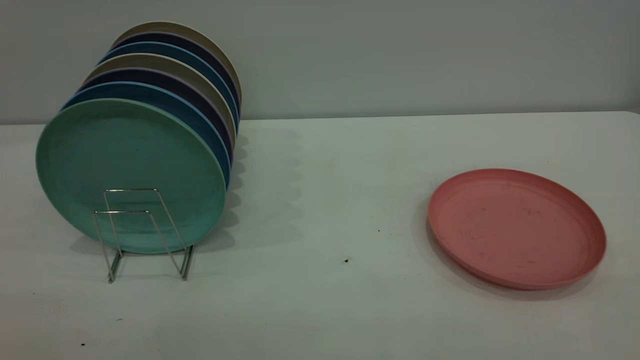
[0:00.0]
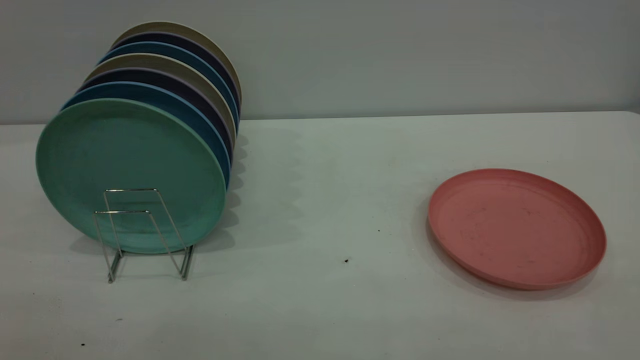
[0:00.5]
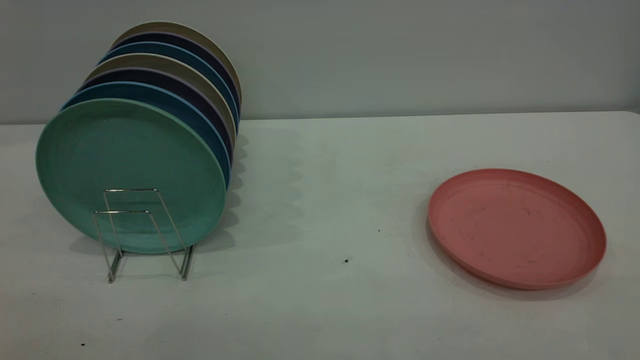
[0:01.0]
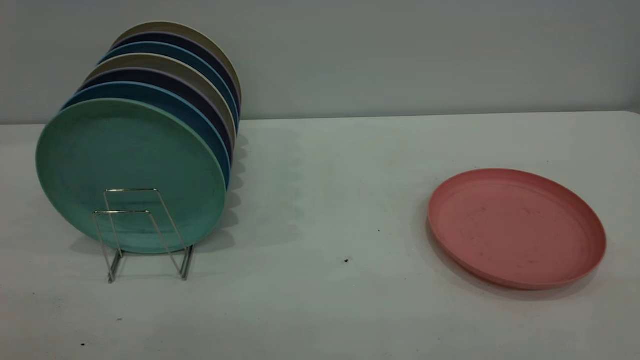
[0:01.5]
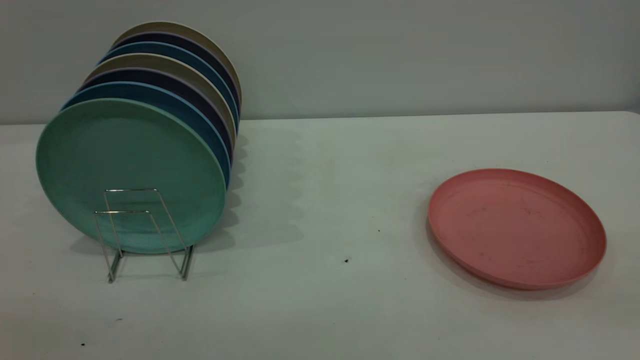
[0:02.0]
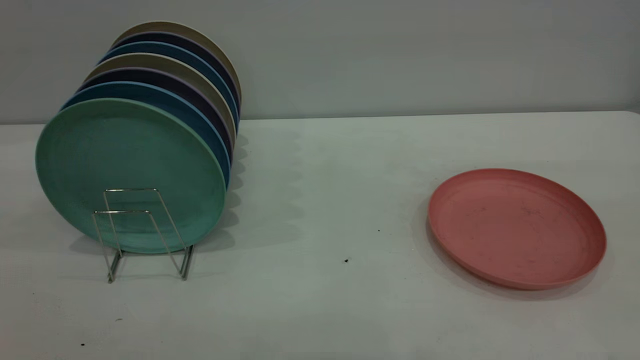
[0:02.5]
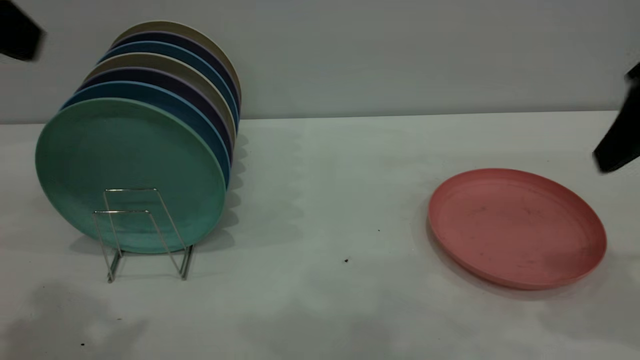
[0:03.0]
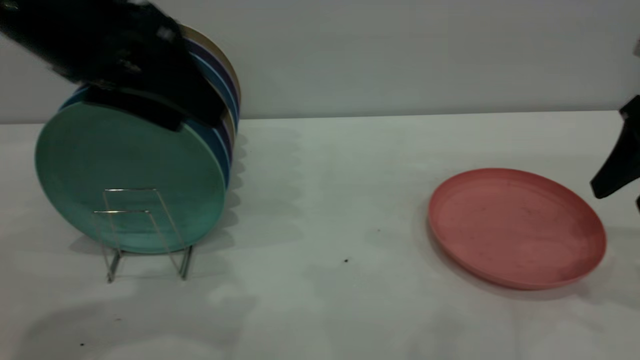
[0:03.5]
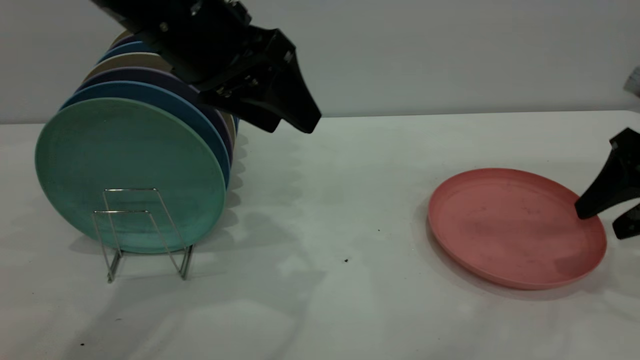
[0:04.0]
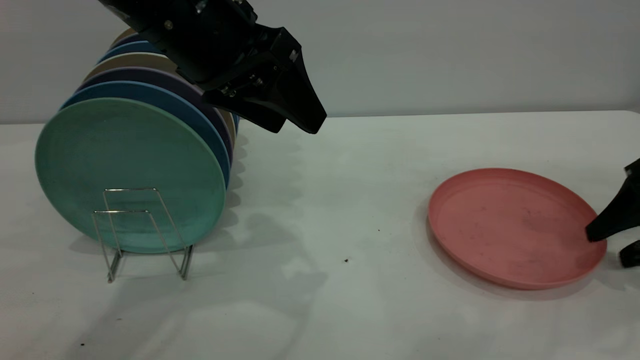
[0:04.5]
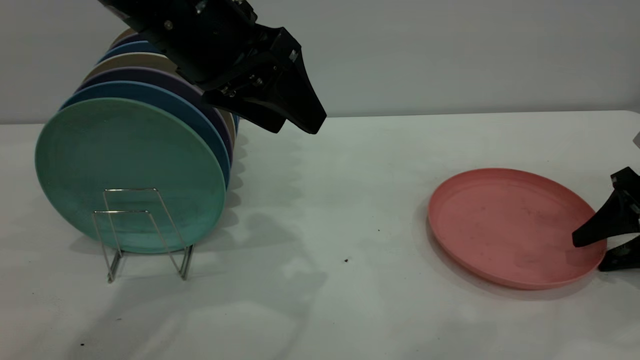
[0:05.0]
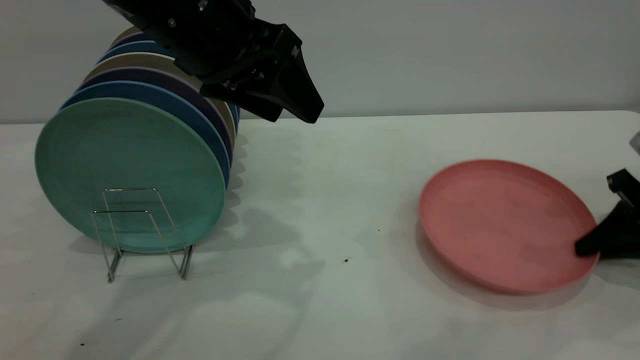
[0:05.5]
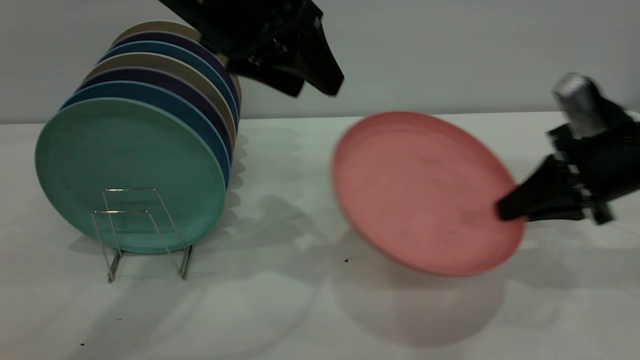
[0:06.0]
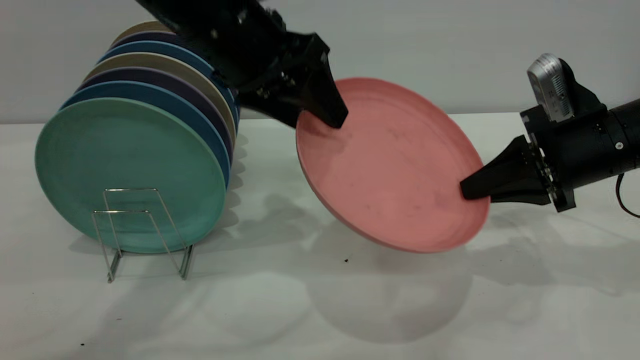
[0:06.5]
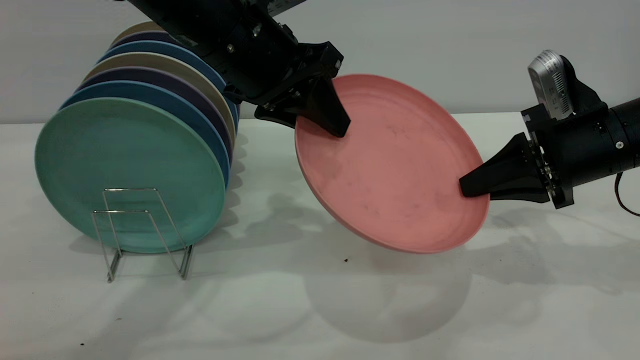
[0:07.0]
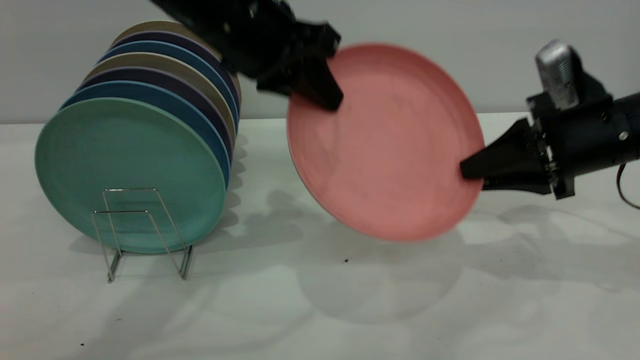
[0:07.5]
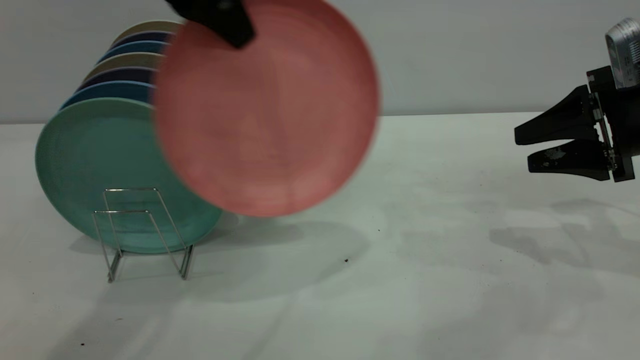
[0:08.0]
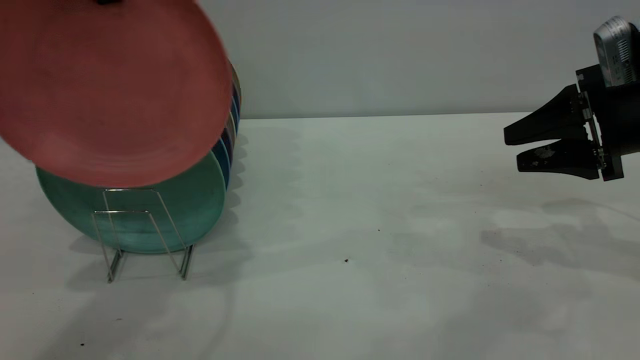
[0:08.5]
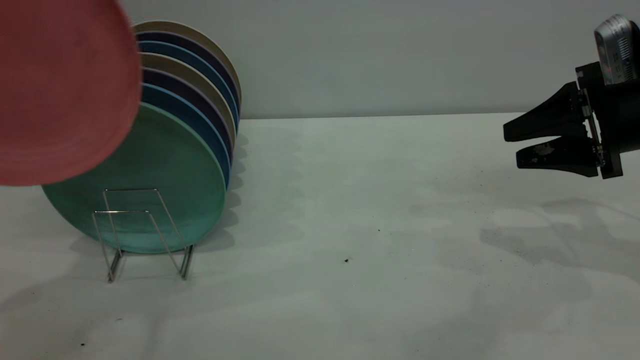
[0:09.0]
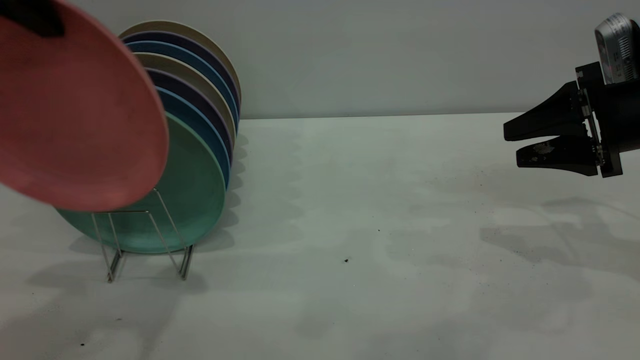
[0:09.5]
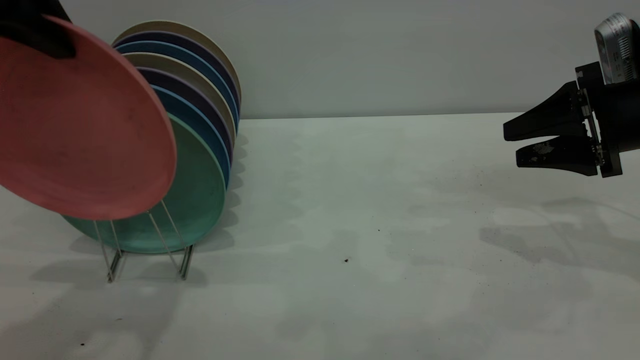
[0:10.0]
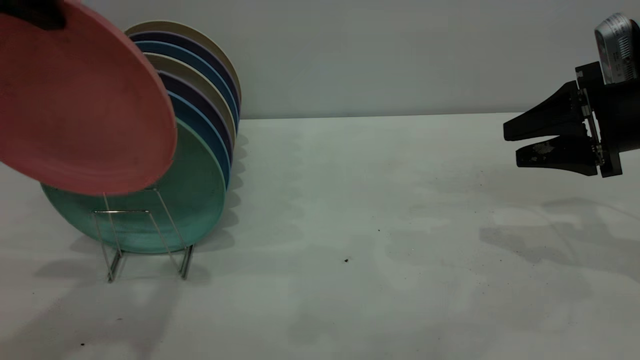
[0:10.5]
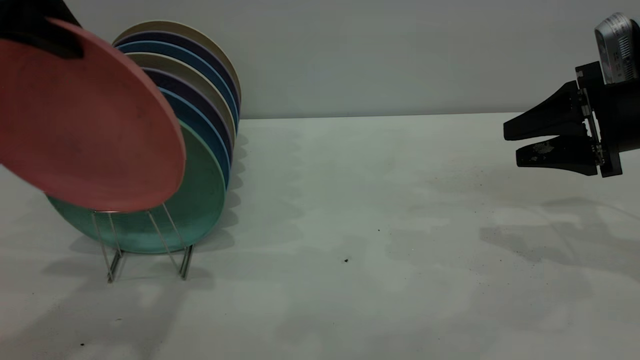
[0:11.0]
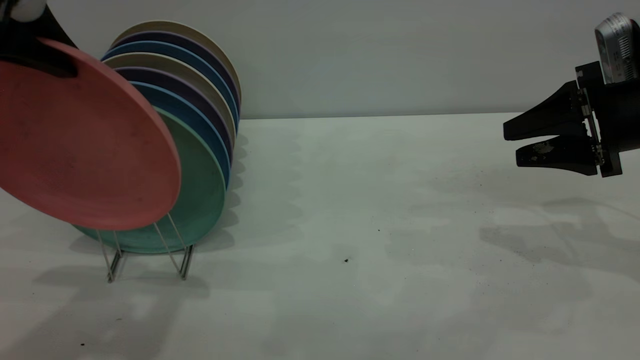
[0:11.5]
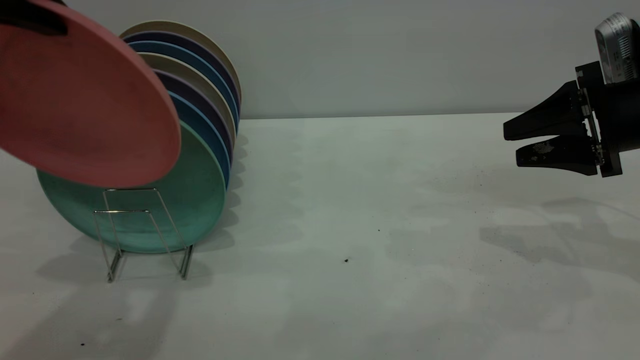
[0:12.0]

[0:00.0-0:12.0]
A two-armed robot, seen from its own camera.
Task of the whole recording: the right gripper grasp the pink plate, the right gripper pass the pink plate to the left gripper, and the left gripper place the pink plate on the plate rack.
Step, 0:00.0 to 0:05.5: Pick up the plate with the right gripper.
Step, 0:06.0 to 0:07.5: Pass the plate from the right gripper to the left gripper.
0:02.0 to 0:04.0: The right gripper heads forward and downward, covering some 40 cm, while the left gripper heads forward and to the right, covering some 35 cm.
0:04.0 to 0:06.0: The right gripper moves to the left, roughly 5 cm, and closes up.
0:06.0 to 0:08.0: The right gripper changes place by roughly 5 cm, and opens, while the left gripper heads upward, covering roughly 5 cm, and closes its fingers.
0:08.0 to 0:10.0: The left gripper goes some 10 cm to the left and backward.
0:10.0 to 0:12.0: The grippers stay close to where they were, moving slightly.

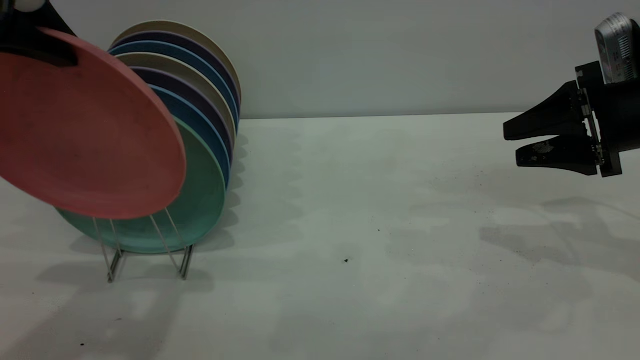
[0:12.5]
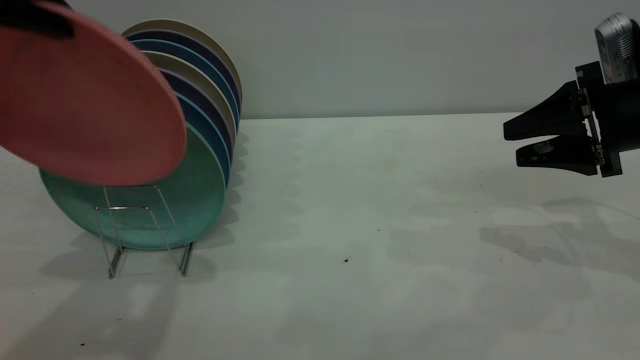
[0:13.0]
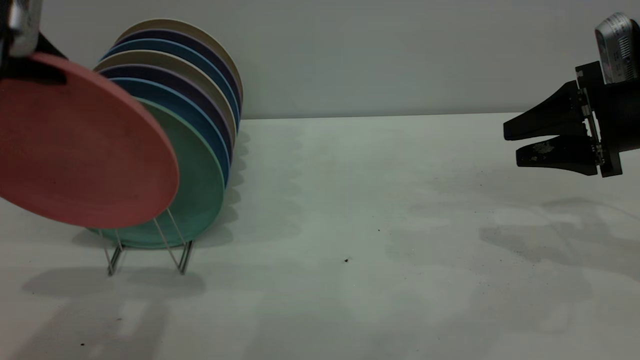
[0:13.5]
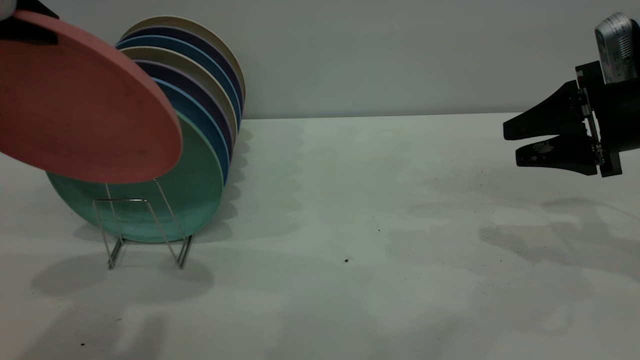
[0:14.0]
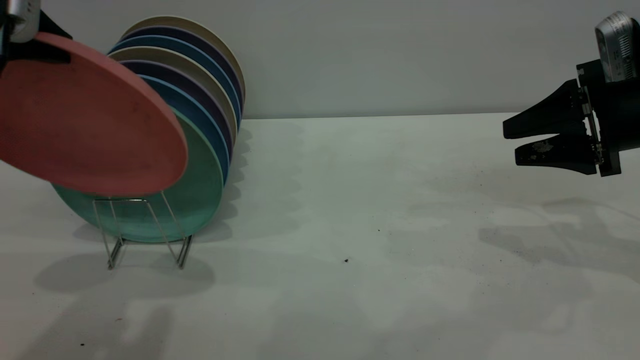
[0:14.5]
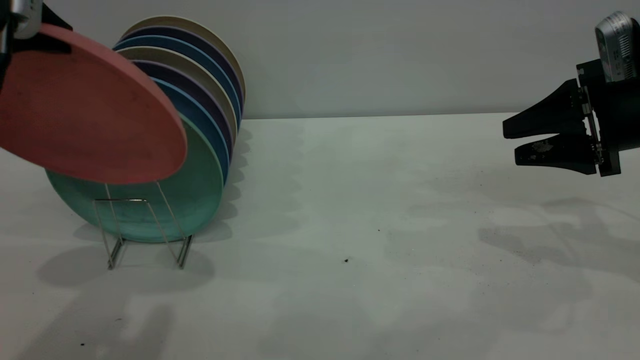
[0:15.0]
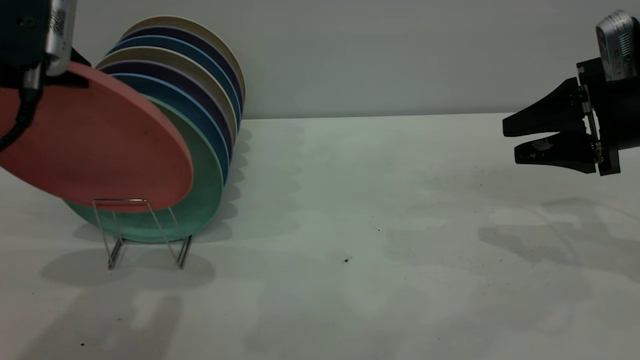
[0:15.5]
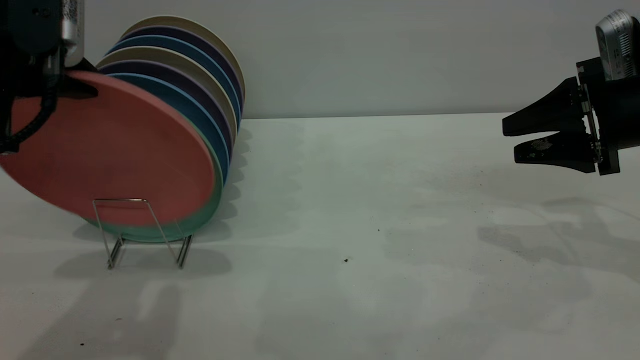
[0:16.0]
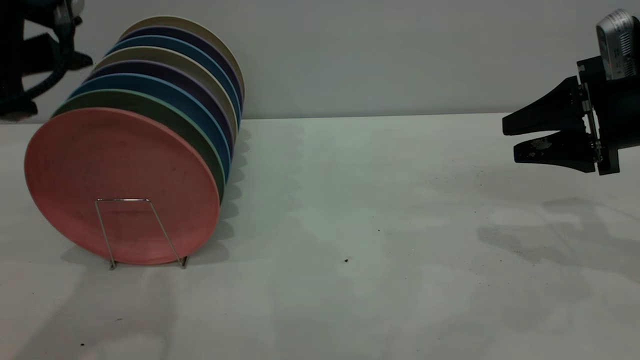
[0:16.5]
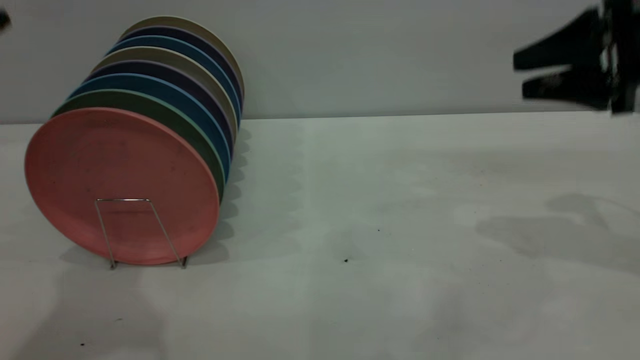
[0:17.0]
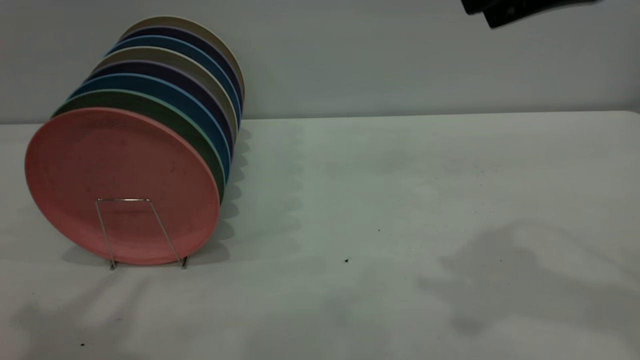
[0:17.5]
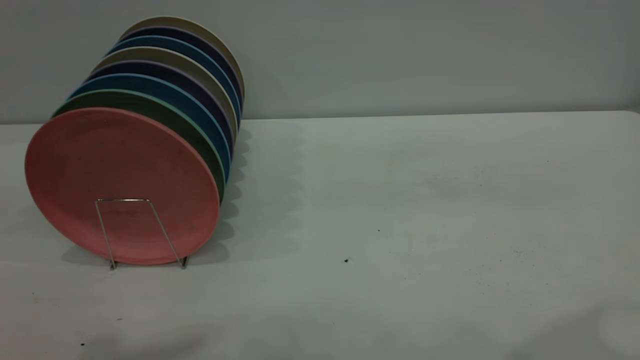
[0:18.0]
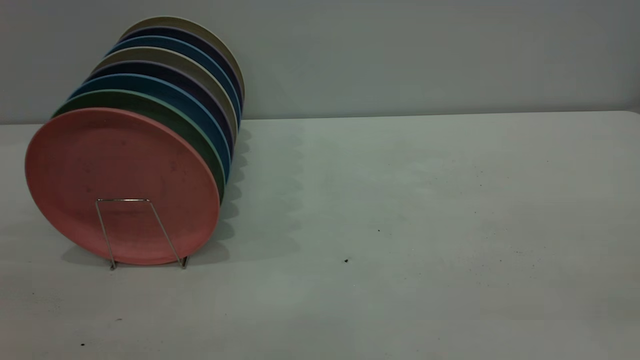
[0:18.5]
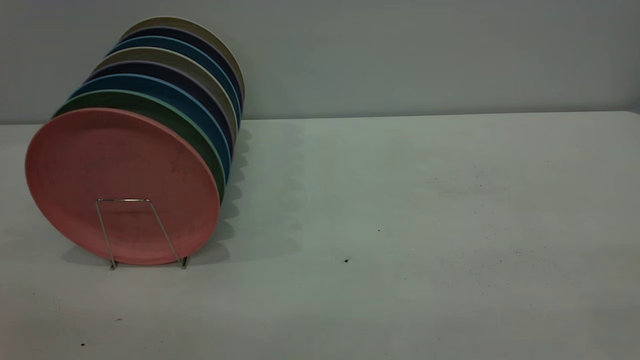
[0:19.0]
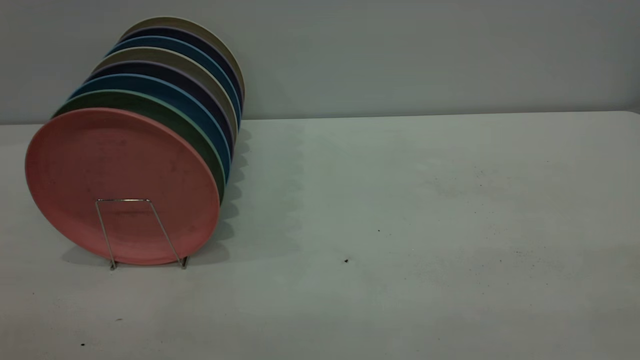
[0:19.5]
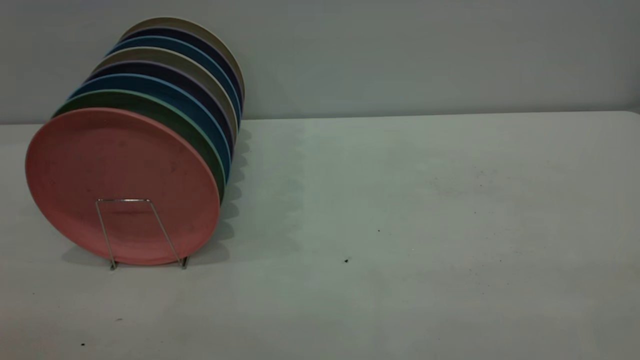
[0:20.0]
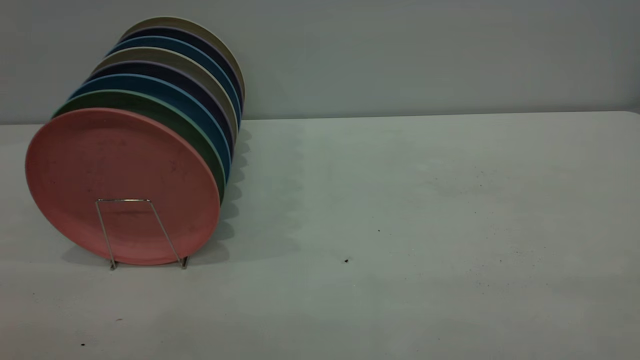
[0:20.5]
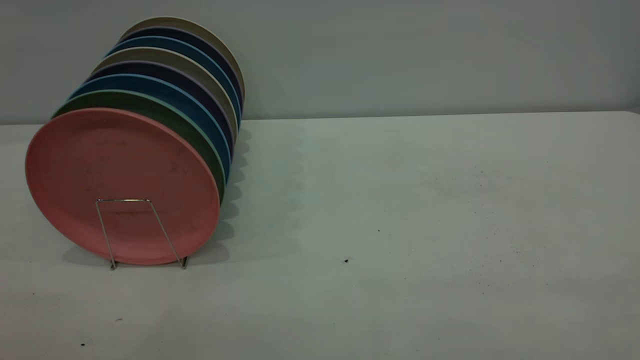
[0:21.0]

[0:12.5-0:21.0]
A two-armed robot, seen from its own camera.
Task of the whole recording: the right gripper grasp the pink plate, the right gripper pass the pink plate to the left gripper, and the left gripper place the pink plate on the plate rack.
Step, 0:12.5 to 0:16.5: Place the plate on the shelf.
0:12.5 to 0:14.5: There are only small adjustments of the grippers.
0:14.5 to 0:16.5: The left gripper opens its fingers.
0:16.5 to 0:19.0: The right gripper moves backward and upward, roughly 40 cm. Meanwhile the left gripper heads backward, covering roughly 25 cm.
